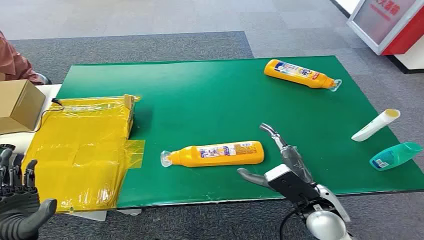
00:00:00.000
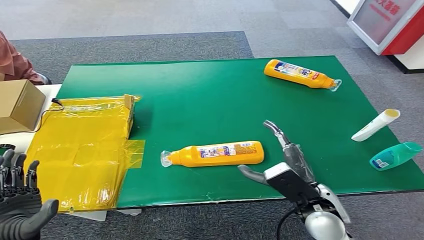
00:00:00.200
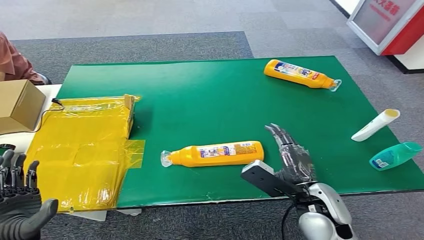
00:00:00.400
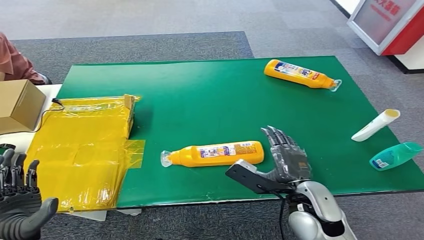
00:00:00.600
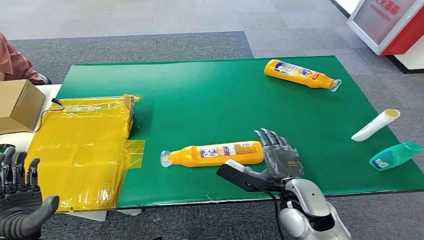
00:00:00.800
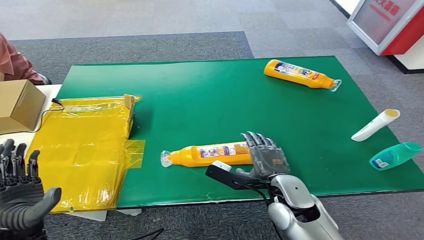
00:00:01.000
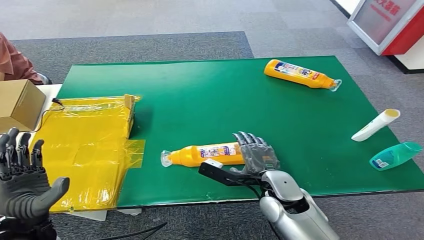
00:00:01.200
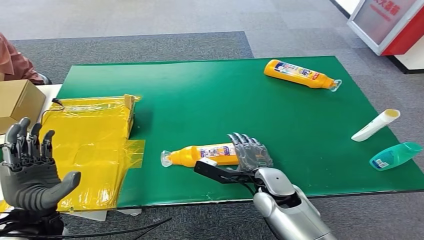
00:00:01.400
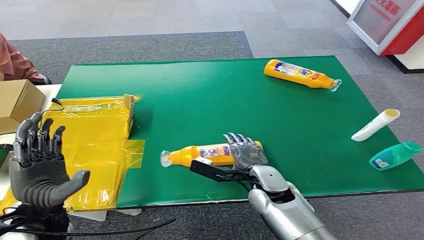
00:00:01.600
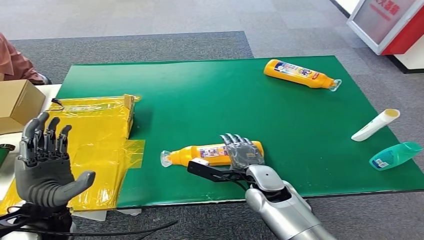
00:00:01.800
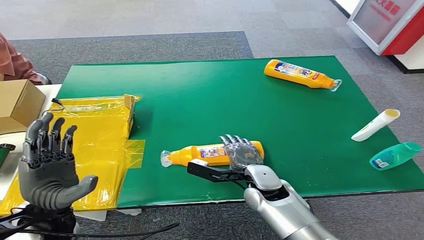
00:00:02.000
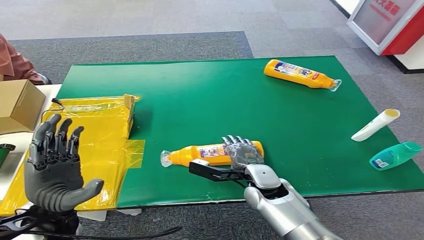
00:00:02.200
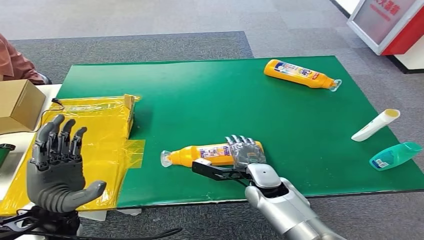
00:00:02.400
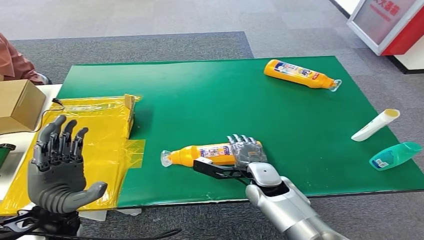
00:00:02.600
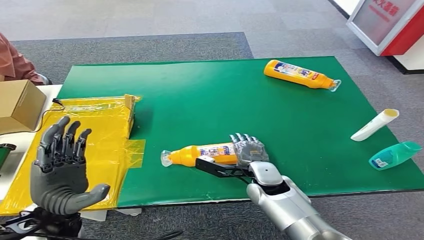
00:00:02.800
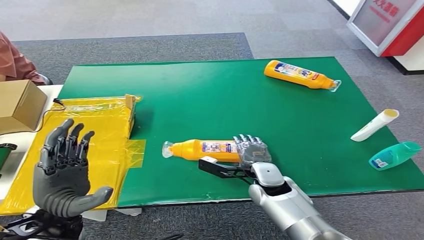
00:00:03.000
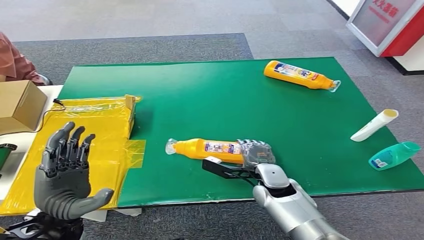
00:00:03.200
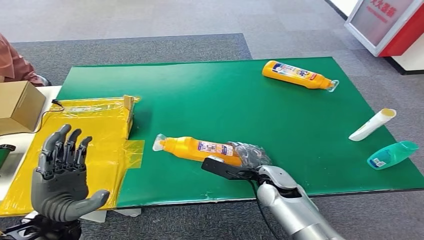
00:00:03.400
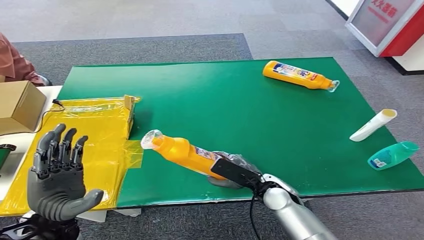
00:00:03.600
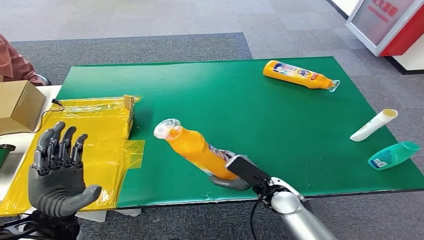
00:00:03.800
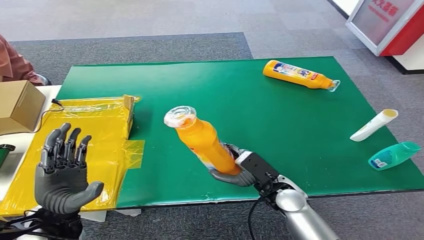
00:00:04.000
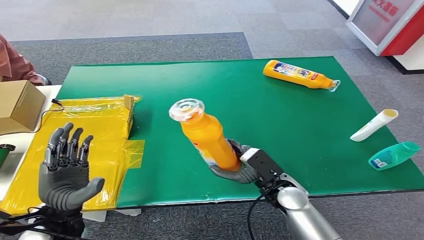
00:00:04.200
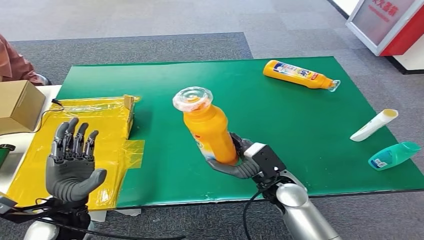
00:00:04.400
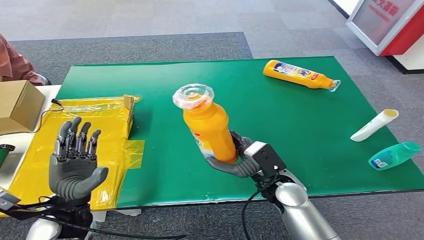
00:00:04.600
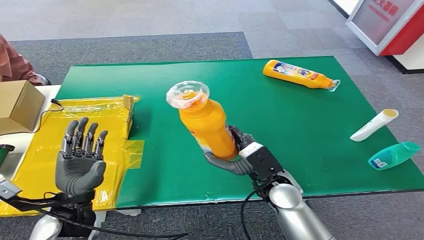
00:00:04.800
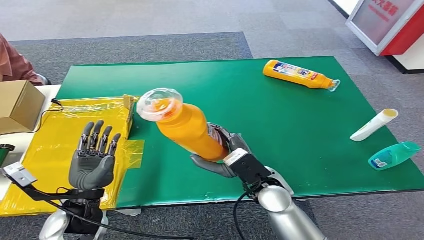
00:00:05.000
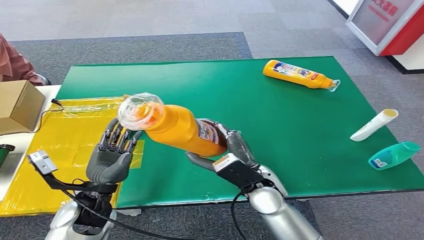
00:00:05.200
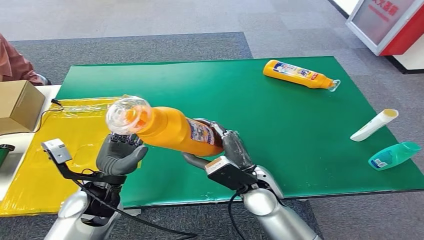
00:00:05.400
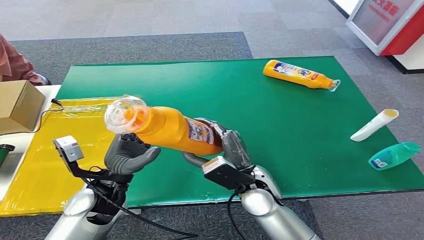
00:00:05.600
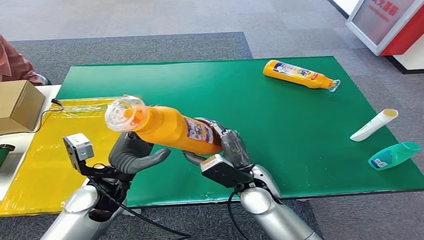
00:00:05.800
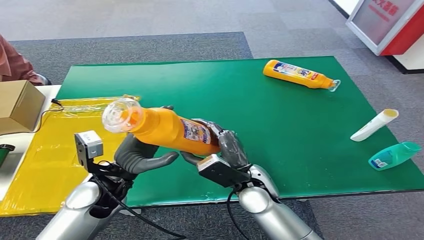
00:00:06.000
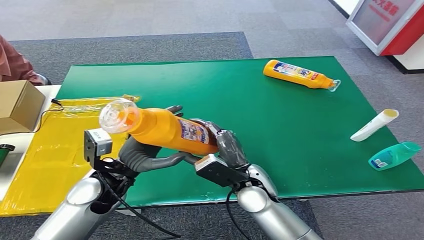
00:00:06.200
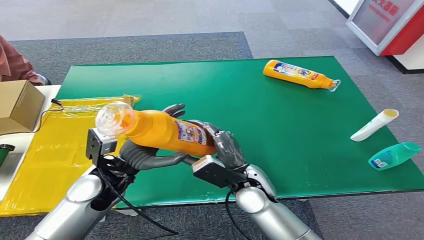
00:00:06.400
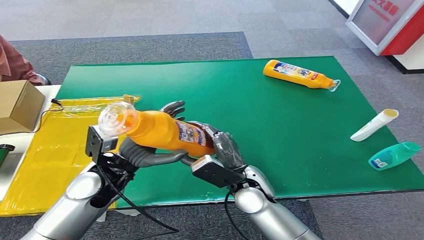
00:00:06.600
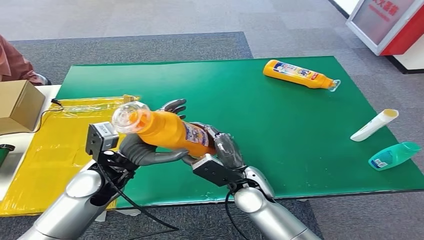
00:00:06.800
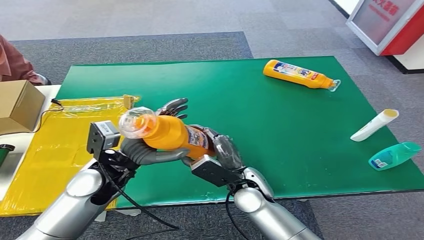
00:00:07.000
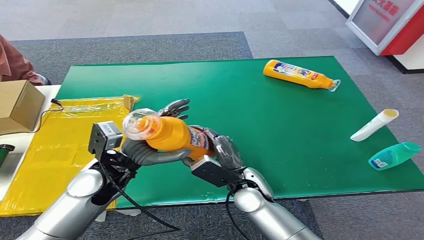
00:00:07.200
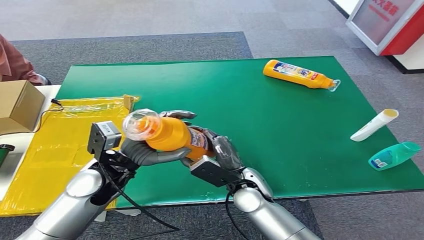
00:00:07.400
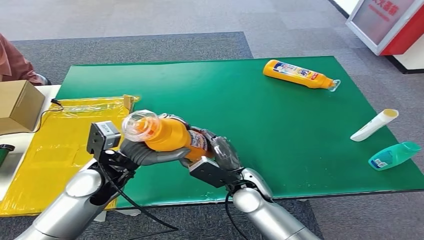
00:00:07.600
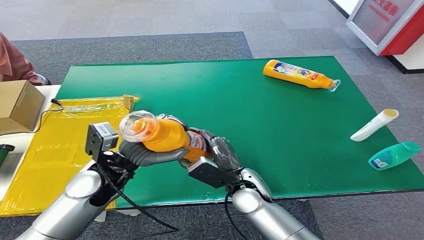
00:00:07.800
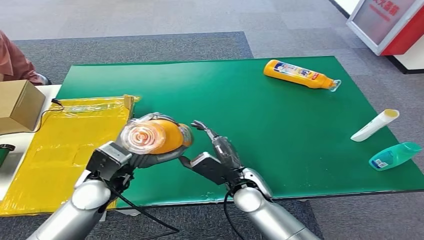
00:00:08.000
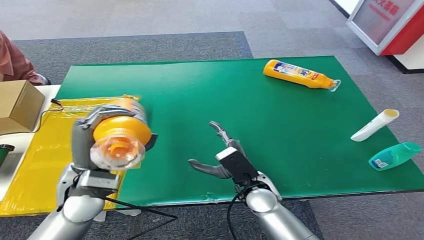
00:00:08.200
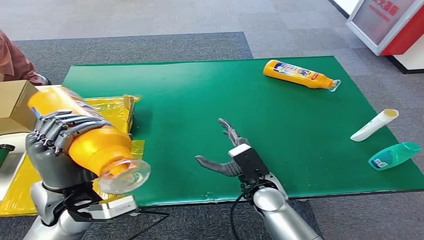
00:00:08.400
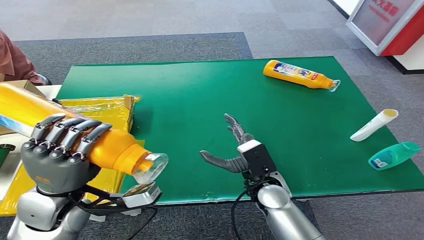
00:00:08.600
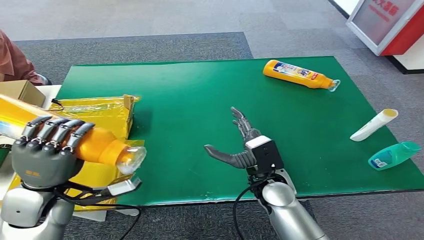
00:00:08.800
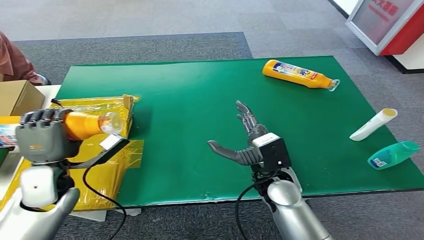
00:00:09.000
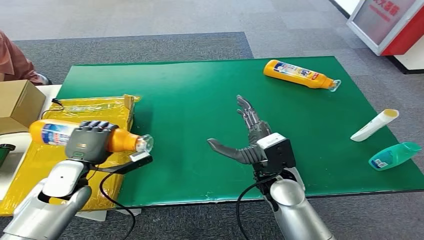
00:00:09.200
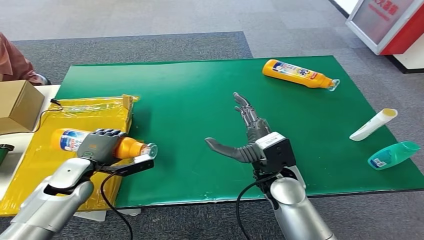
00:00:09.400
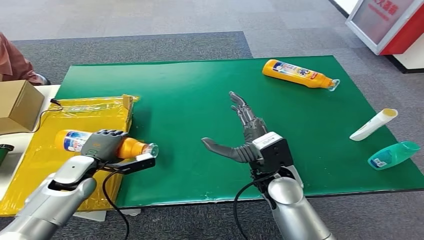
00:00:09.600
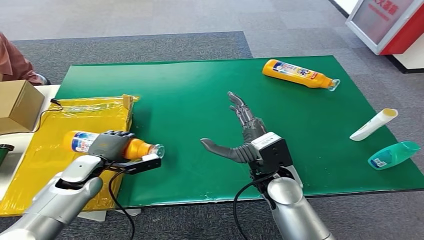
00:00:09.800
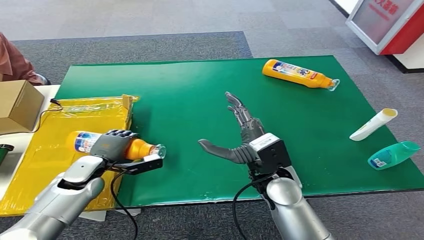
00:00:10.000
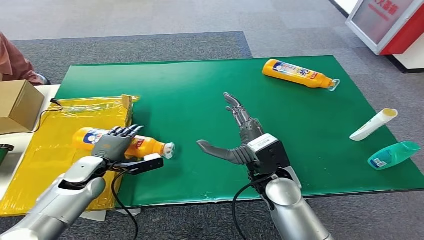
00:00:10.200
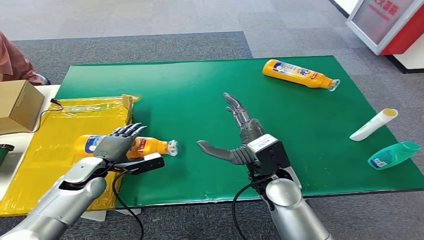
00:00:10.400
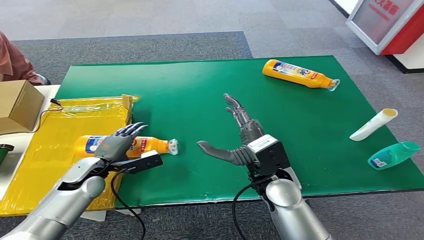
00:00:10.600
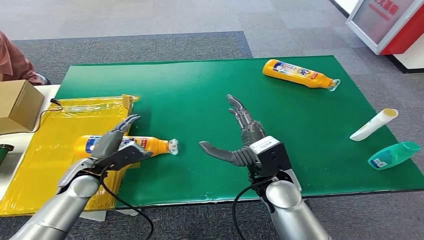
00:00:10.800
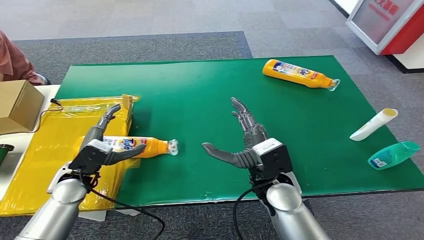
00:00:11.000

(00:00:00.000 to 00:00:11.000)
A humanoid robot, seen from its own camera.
Step, 00:00:00.000 - 00:00:04.600: Pick up the bottle from the table.
Step, 00:00:04.800 - 00:00:11.000: Turn the bottle to the front side.
00:00:01.600 - 00:00:03.200: The hands stay close to where they were, moving slightly.
00:00:03.200 - 00:00:04.800: The right hand is displaced upward by about 5 cm.
00:00:06.200 - 00:00:07.800: The hands stay close to where they were, moving slightly.
00:00:07.800 - 00:00:09.400: The left hand heads to the left and downward, covering about 15 cm, while the right hand heads upward, covering roughly 5 cm.

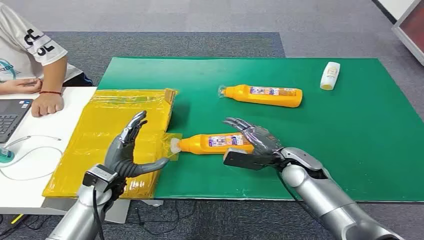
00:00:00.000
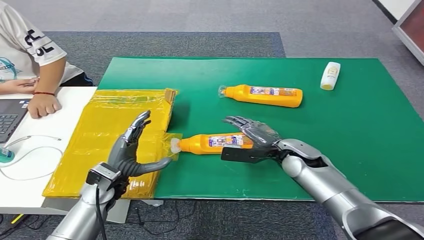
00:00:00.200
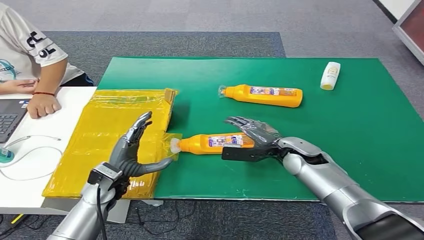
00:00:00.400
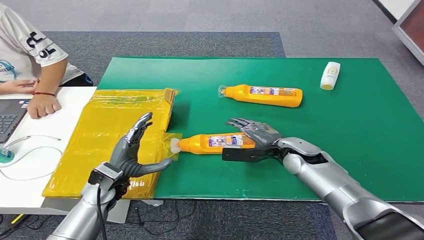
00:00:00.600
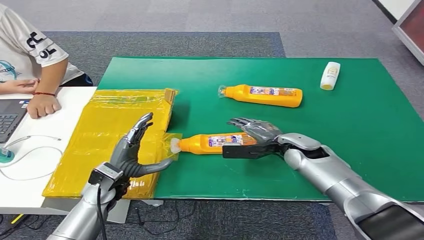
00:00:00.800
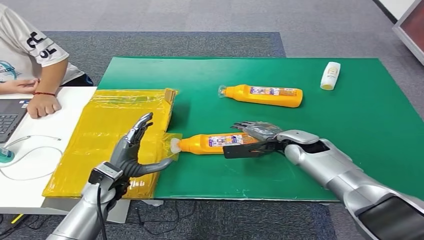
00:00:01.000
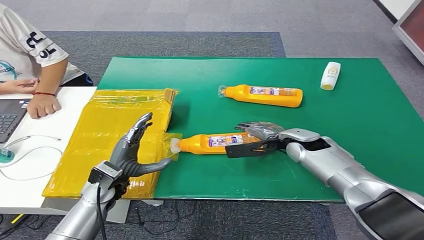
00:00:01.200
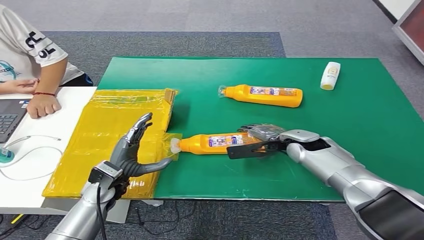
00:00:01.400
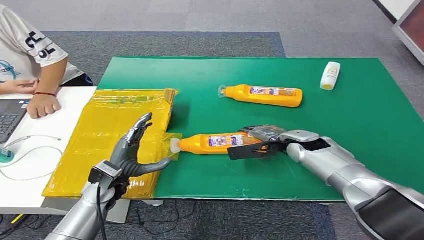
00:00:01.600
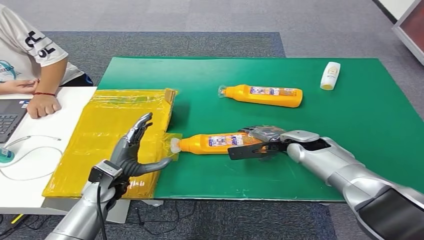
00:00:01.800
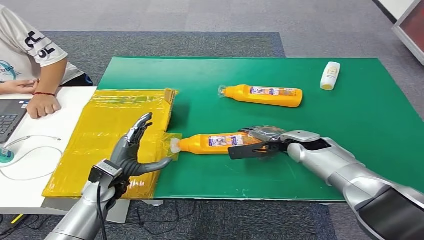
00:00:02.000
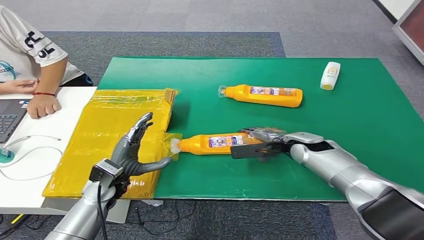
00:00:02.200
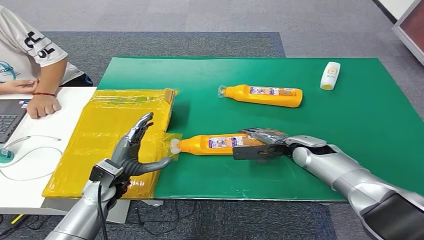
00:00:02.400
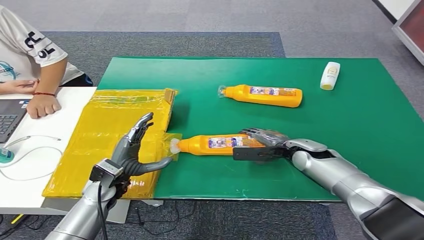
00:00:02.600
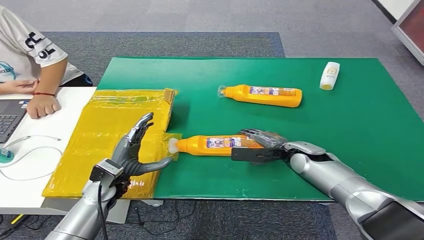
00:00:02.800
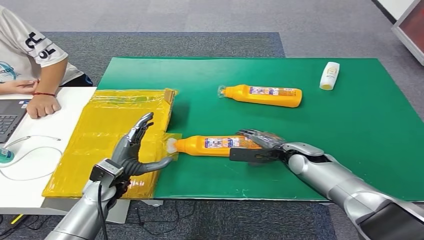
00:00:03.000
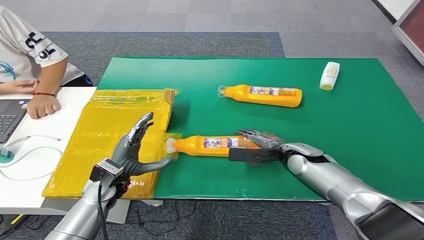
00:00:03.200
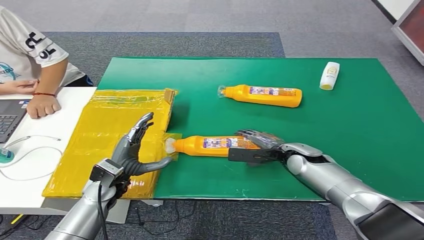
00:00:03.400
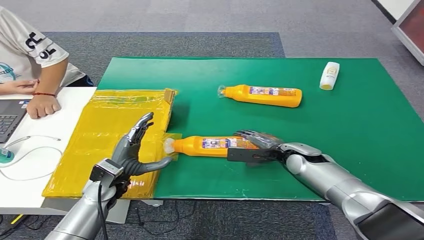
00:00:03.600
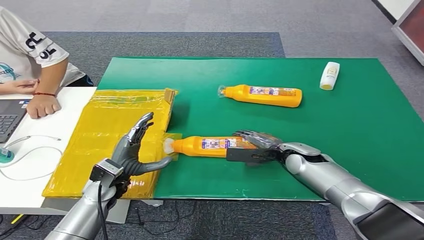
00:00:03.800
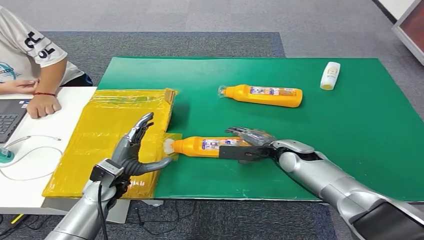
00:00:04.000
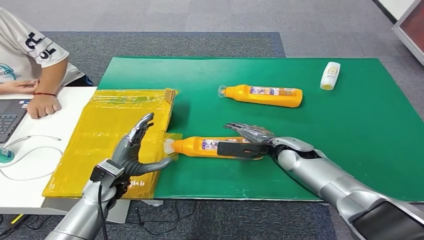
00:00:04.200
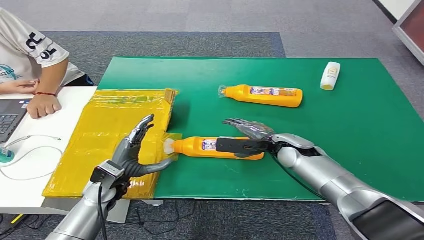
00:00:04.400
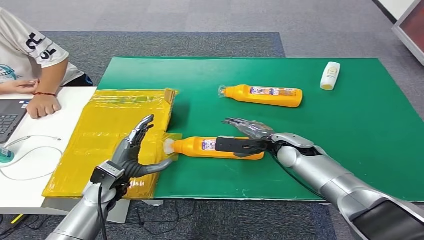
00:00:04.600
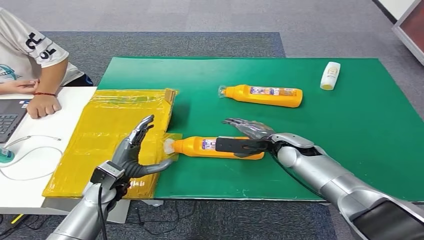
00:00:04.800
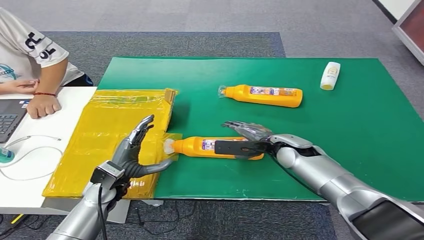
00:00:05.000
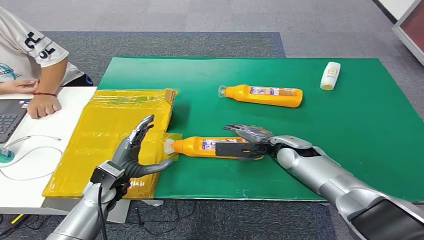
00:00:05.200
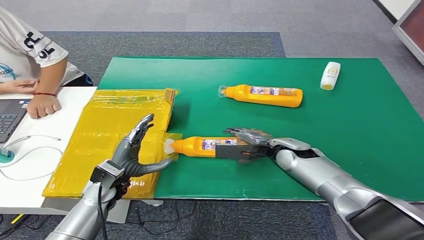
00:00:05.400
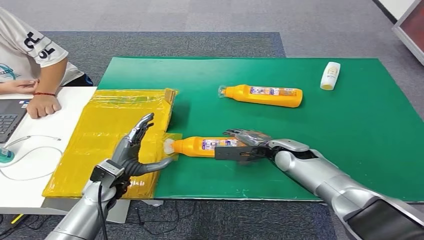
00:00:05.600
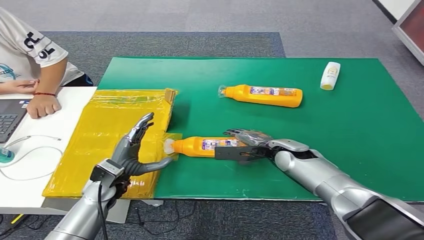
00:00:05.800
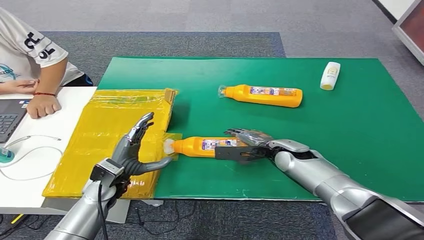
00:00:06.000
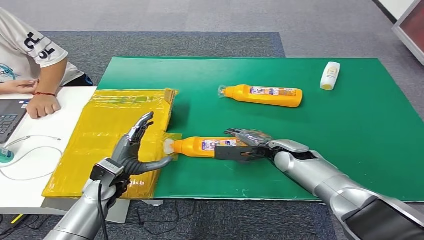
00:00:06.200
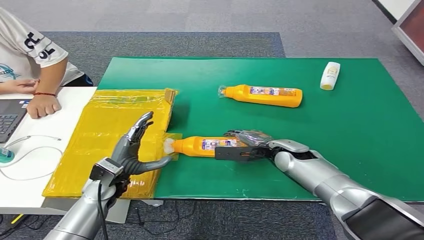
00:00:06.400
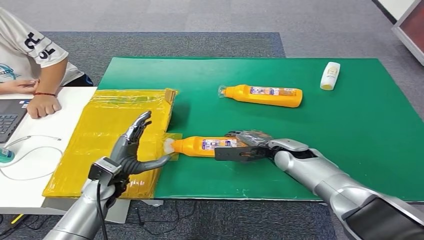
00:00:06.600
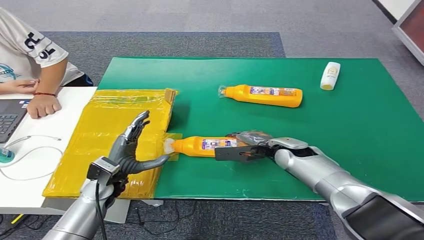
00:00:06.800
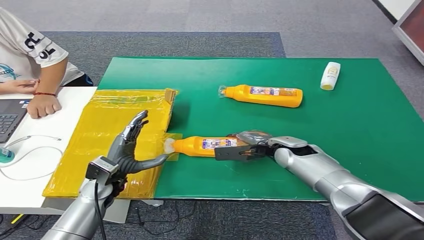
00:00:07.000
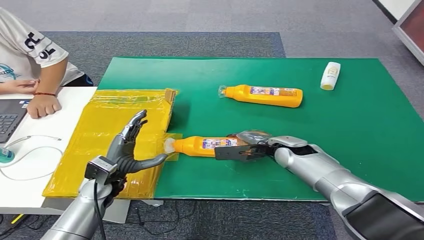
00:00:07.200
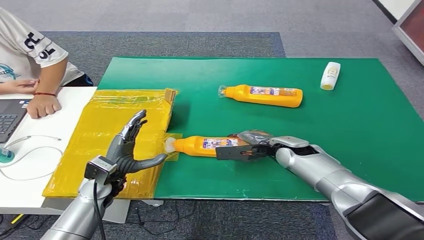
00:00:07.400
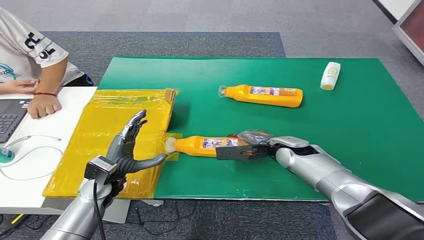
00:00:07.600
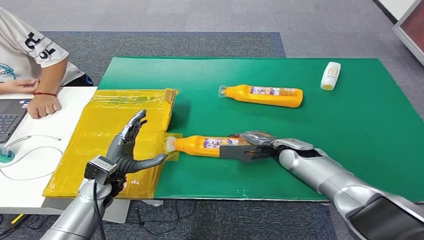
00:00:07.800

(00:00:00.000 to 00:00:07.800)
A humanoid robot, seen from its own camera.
00:00:01.600 - 00:00:03.200: The hands make only small movements.
00:00:03.200 - 00:00:04.600: The right hand changes place by some 5 cm.
00:00:04.600 - 00:00:07.800: The hands make only small movements.
